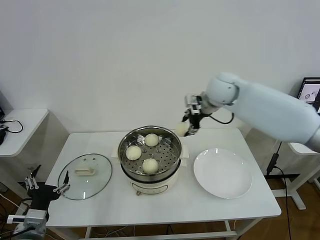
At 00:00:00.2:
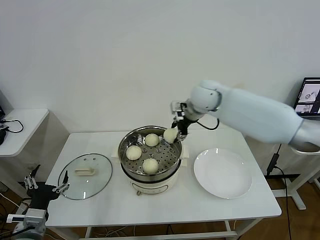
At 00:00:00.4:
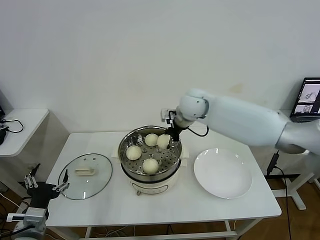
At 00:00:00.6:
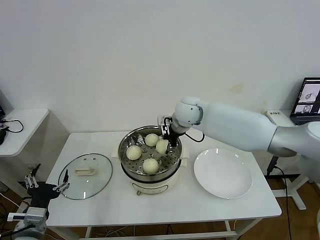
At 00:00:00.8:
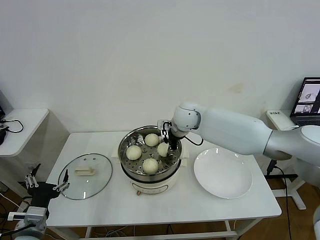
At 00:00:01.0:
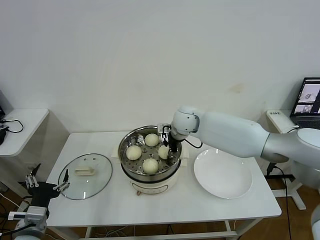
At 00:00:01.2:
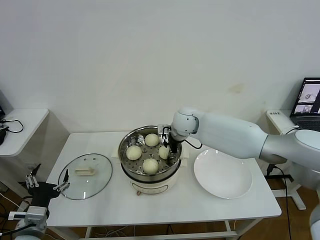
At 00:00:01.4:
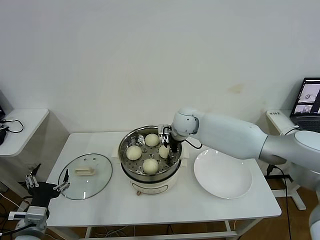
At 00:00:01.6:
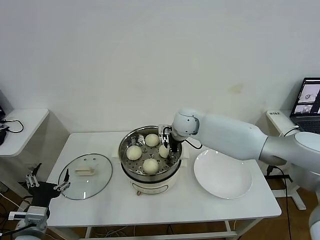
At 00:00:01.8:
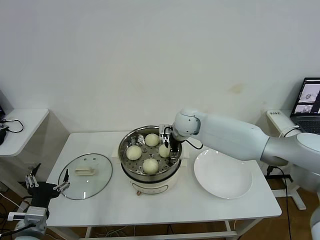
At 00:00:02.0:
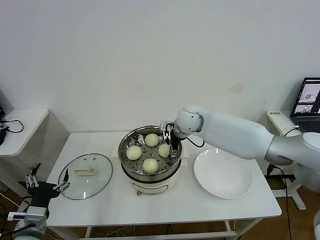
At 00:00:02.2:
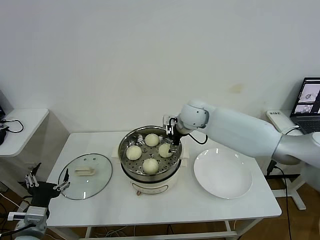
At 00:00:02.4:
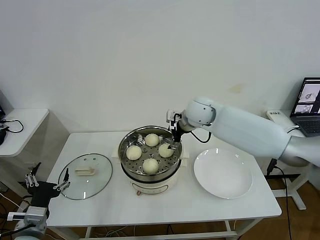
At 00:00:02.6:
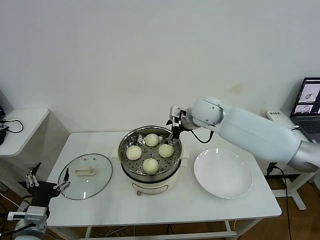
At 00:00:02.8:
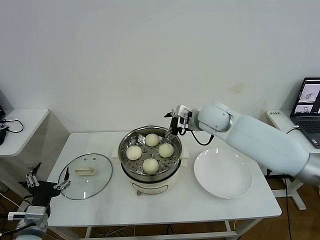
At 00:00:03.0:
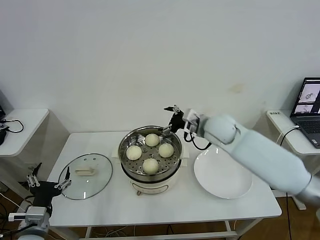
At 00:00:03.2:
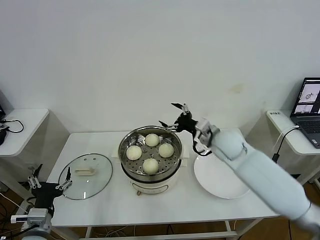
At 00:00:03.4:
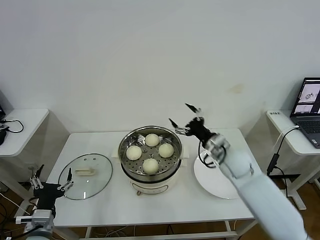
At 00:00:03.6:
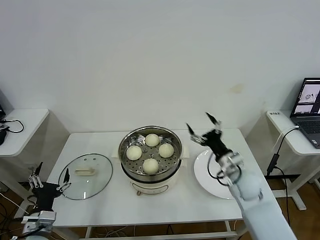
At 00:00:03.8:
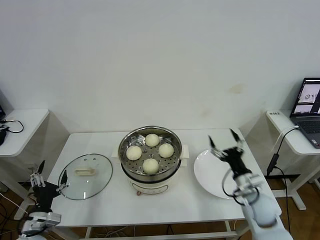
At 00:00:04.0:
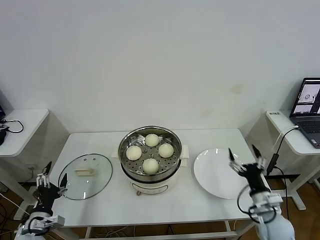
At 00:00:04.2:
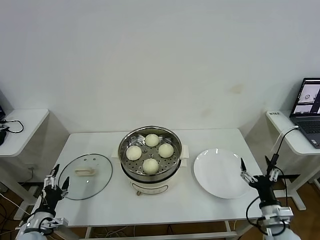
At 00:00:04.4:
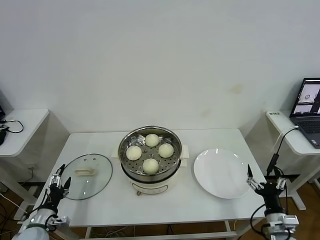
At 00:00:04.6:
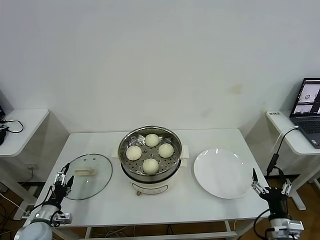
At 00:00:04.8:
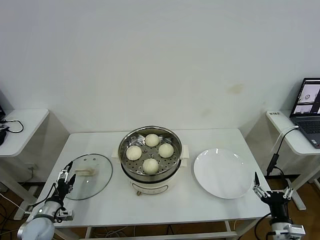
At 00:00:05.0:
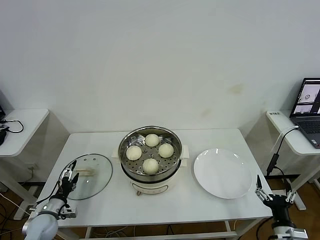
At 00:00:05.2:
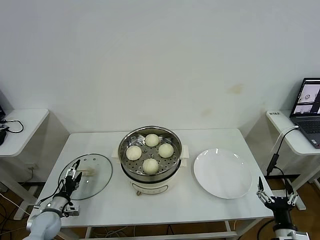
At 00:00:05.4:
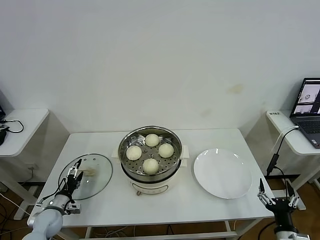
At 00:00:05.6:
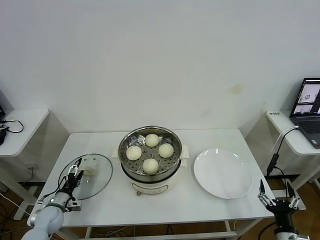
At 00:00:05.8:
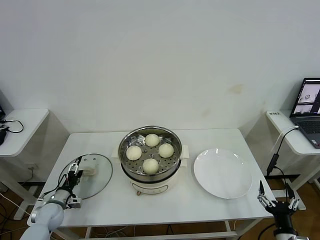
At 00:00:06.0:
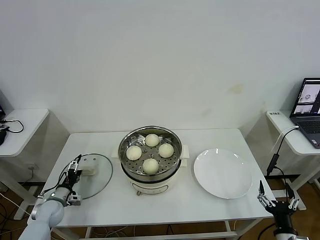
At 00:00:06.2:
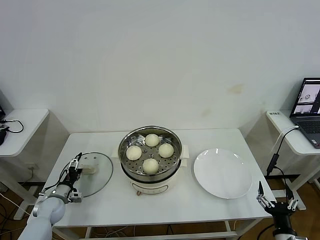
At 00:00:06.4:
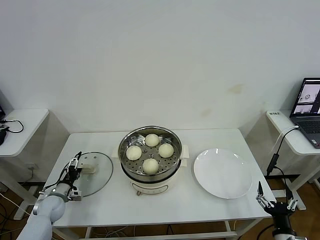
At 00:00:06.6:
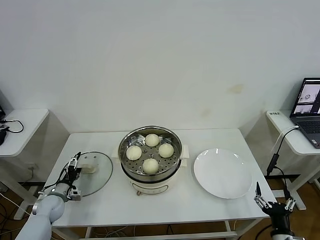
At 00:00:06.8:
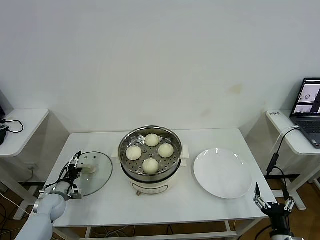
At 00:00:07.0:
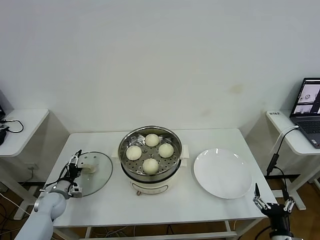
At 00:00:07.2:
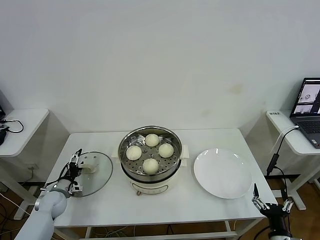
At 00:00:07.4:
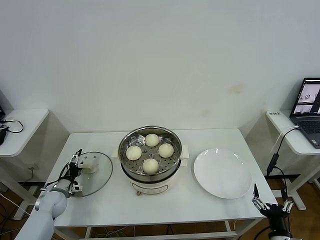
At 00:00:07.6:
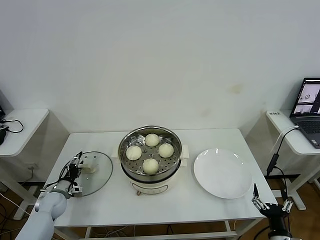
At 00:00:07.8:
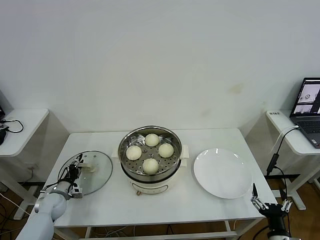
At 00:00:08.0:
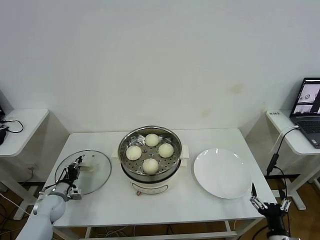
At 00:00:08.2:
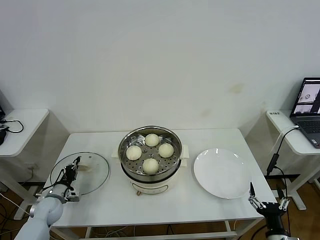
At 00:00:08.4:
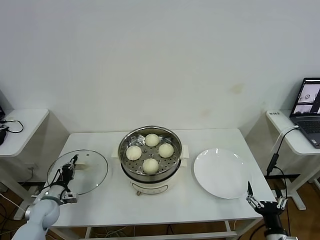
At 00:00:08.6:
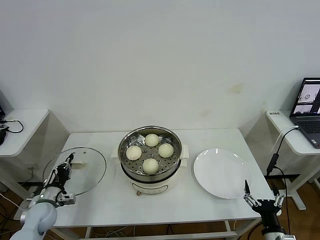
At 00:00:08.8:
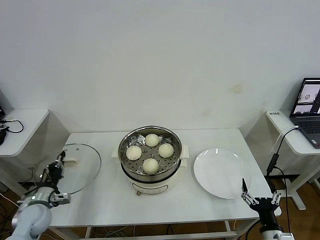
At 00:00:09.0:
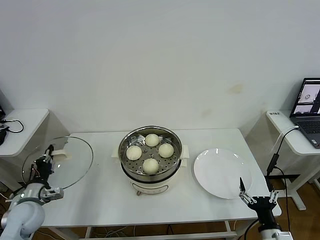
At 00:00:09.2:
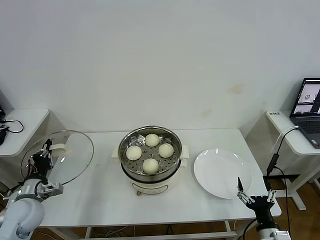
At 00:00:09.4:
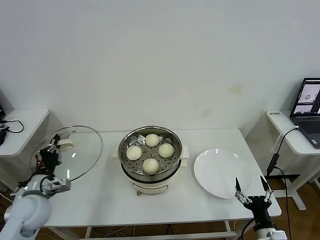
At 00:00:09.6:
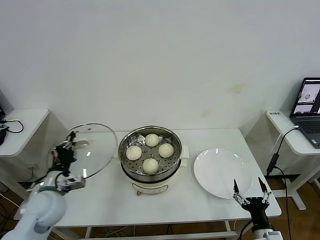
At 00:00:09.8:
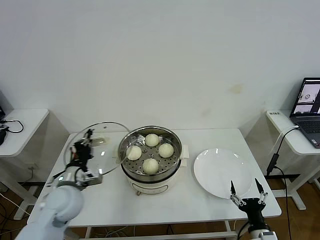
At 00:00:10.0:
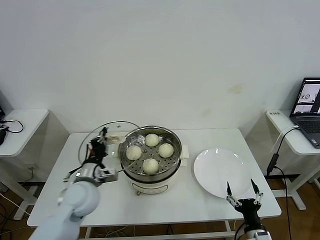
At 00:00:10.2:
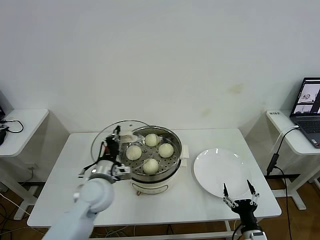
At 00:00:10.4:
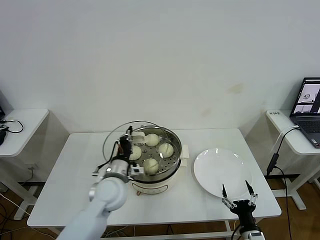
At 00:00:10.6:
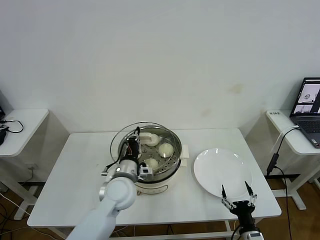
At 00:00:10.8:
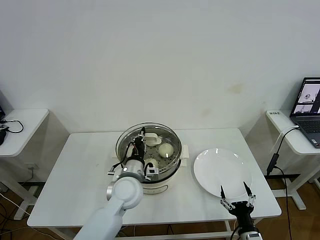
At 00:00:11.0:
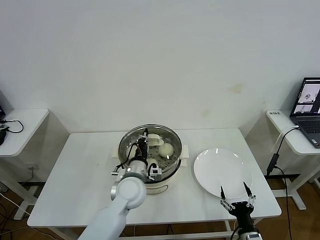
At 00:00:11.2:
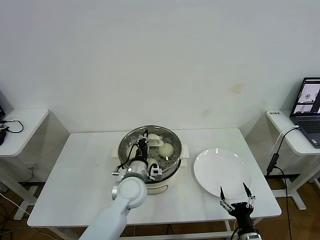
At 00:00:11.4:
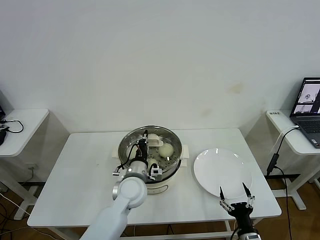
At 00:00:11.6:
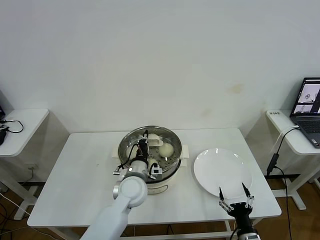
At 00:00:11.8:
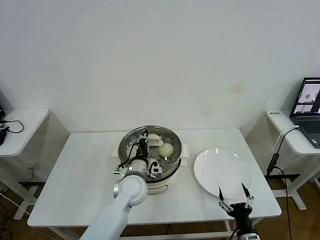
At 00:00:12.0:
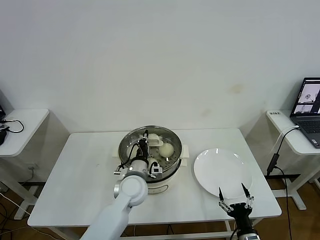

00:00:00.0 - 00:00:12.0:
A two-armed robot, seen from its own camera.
Task of the whole recording: take steamed baozi put them in steamer then cover it.
Step, 00:00:00.0 - 00:00:02.2: Place the baozi on the steamer with right gripper.
Step, 00:00:02.4 - 00:00:08.2: Grasp the pot lid with left gripper.
00:00:00.0 - 00:00:01.6: The right gripper moves downward and to the left, some 15 cm.
00:00:01.6 - 00:00:03.0: The right gripper is displaced to the right and backward by approximately 10 cm, and opens up.
00:00:03.0 - 00:00:04.4: The right gripper travels backward, downward and to the right by about 40 cm. Meanwhile the left gripper moves downward and to the left, roughly 15 cm.
00:00:04.4 - 00:00:06.0: The left gripper heads forward, covering roughly 10 cm, while the right gripper goes about 5 cm backward.
00:00:06.0 - 00:00:07.6: There are only small adjustments of the grippers.
00:00:07.6 - 00:00:09.0: The left gripper shifts some 15 cm upward and backward, and closes.
00:00:09.0 - 00:00:10.4: The right gripper shifts by roughly 5 cm; the left gripper is displaced to the right by some 25 cm.
00:00:10.4 - 00:00:12.0: The left gripper travels to the right by about 5 cm.

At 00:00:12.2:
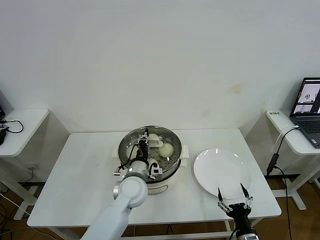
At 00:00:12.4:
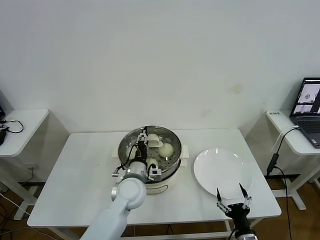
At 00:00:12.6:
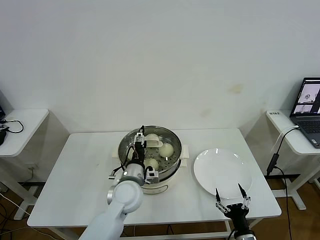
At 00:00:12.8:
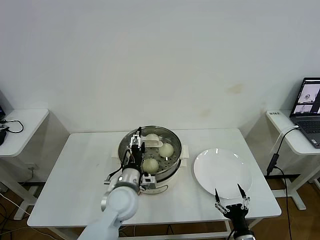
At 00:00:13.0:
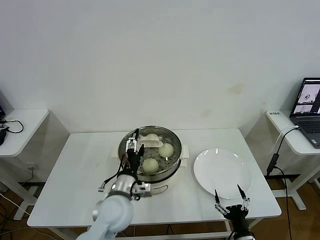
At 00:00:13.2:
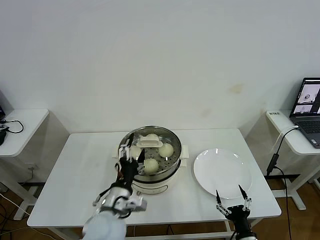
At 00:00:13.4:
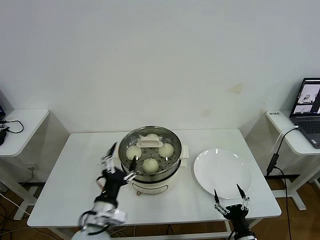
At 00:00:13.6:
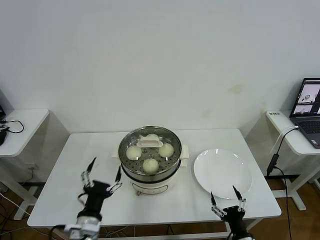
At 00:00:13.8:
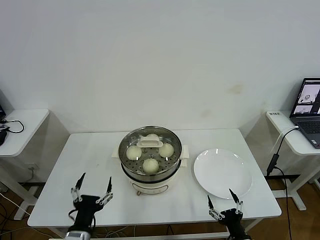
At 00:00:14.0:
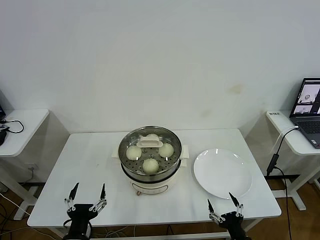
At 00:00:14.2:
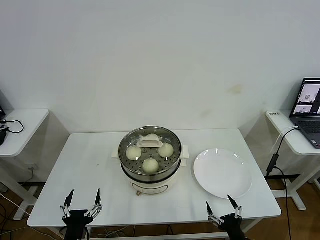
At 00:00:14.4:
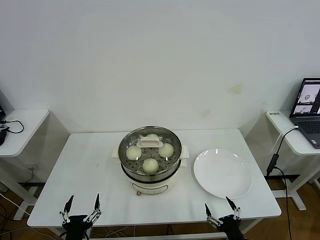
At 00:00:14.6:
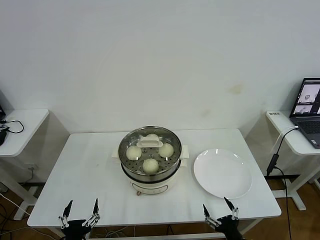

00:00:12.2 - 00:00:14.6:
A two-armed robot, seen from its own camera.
Task of the whole recording: take steamed baozi put them in steamer then cover it.
00:00:12.2 - 00:00:13.4: The left gripper heads backward and to the left, covering about 15 cm, and opens.
00:00:13.4 - 00:00:14.6: The left gripper moves backward, to the left and downward, roughly 20 cm.
